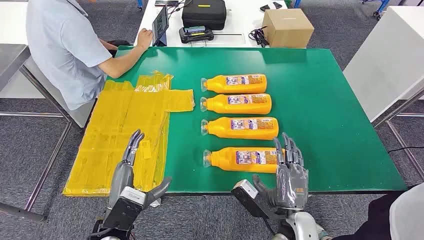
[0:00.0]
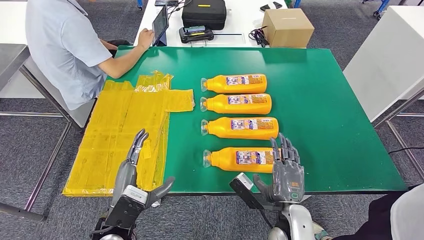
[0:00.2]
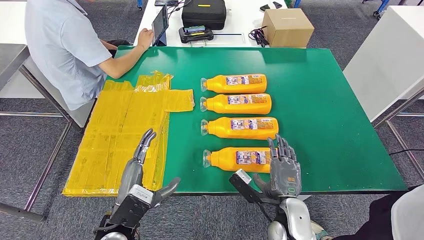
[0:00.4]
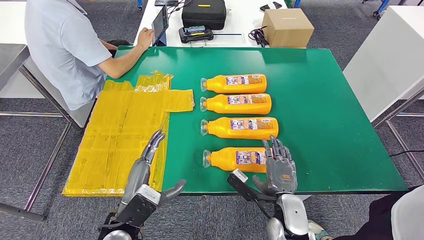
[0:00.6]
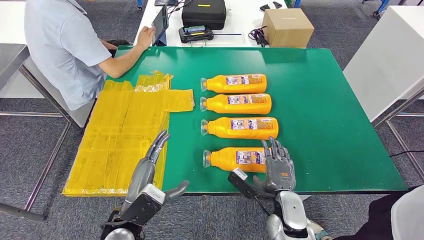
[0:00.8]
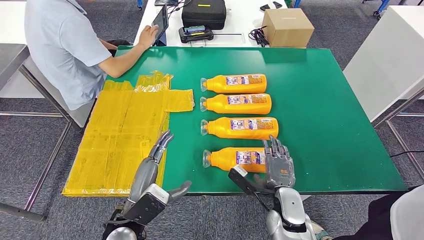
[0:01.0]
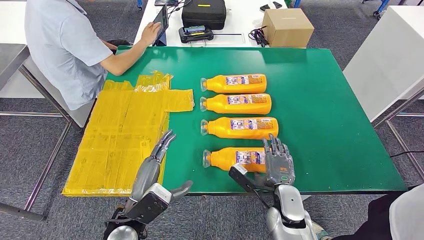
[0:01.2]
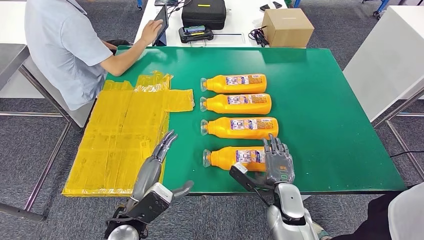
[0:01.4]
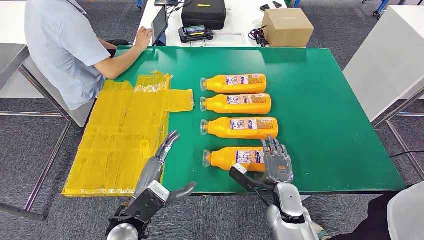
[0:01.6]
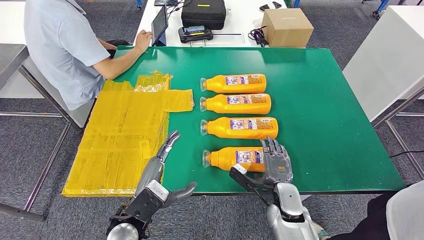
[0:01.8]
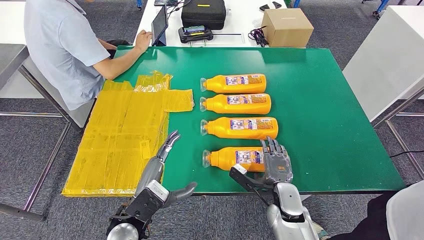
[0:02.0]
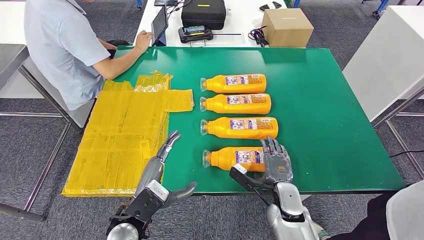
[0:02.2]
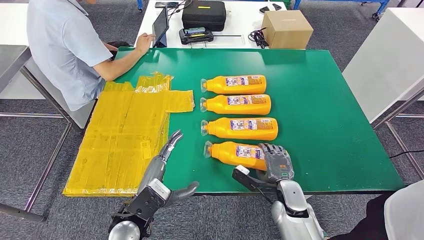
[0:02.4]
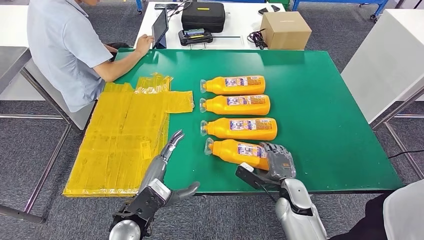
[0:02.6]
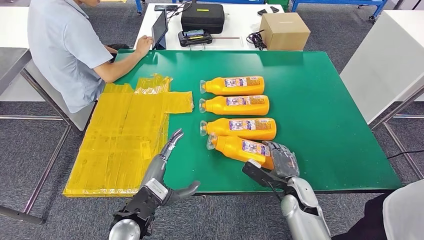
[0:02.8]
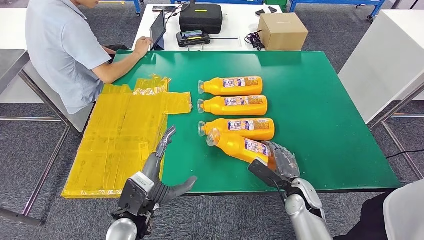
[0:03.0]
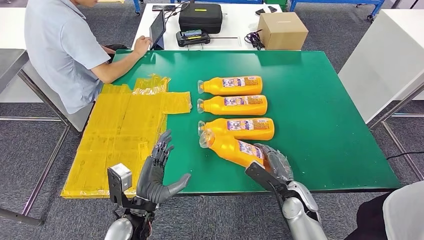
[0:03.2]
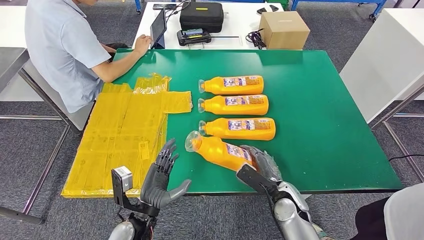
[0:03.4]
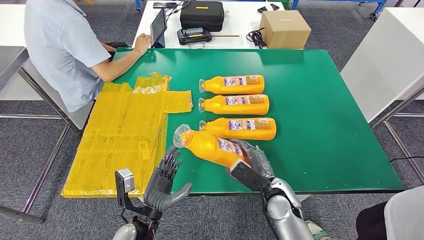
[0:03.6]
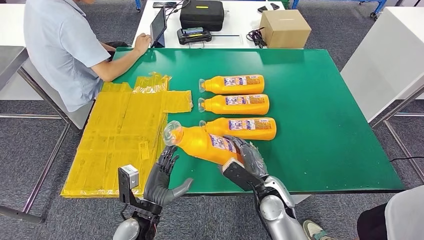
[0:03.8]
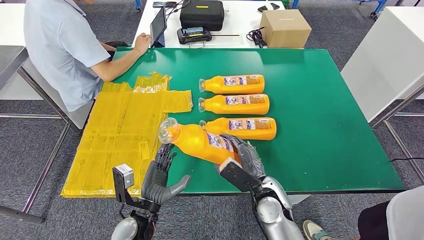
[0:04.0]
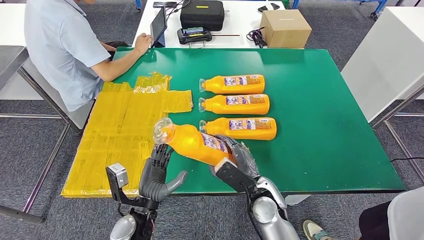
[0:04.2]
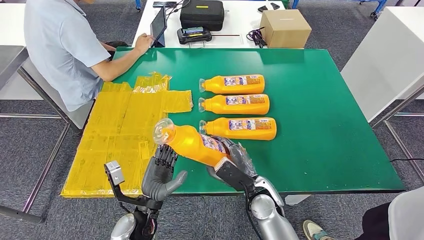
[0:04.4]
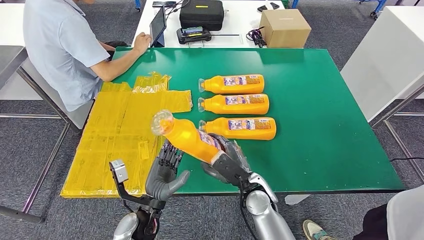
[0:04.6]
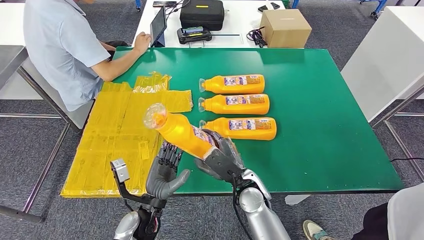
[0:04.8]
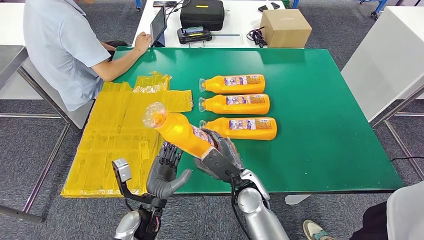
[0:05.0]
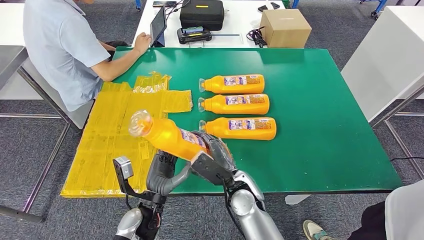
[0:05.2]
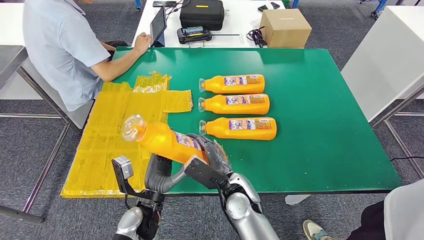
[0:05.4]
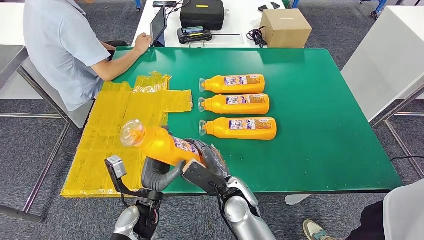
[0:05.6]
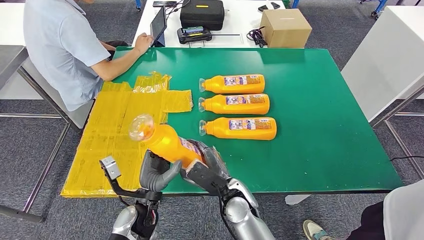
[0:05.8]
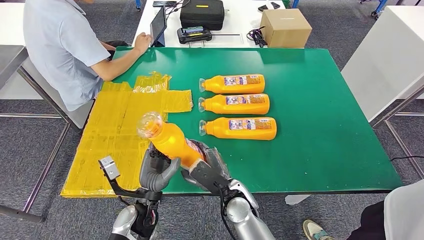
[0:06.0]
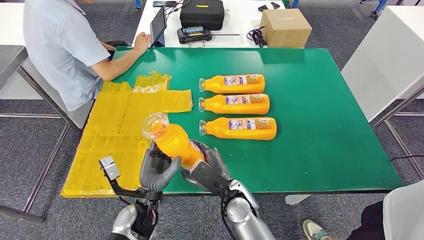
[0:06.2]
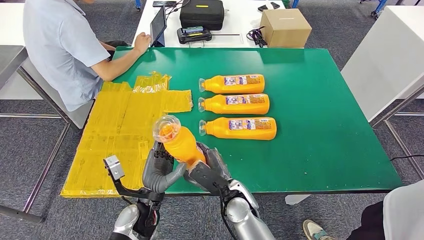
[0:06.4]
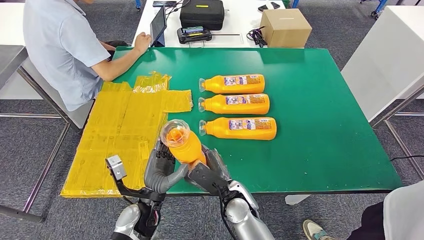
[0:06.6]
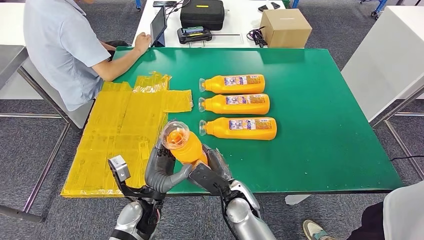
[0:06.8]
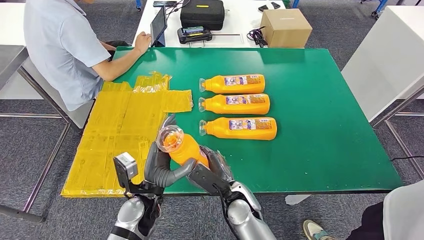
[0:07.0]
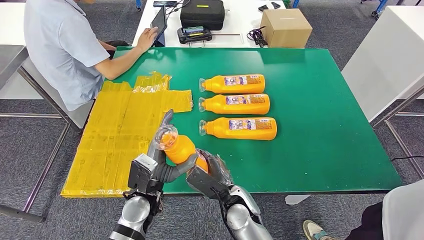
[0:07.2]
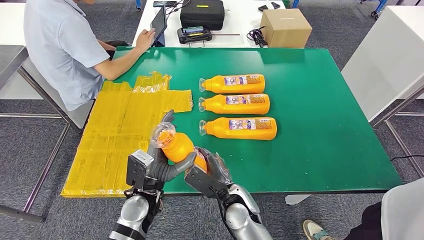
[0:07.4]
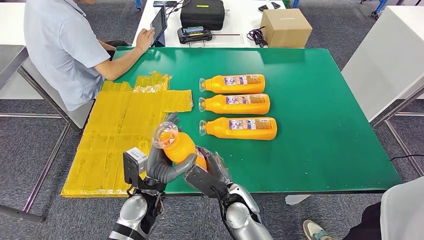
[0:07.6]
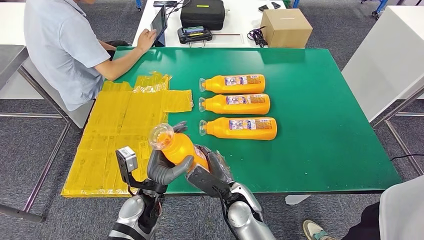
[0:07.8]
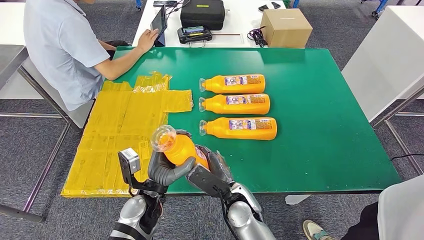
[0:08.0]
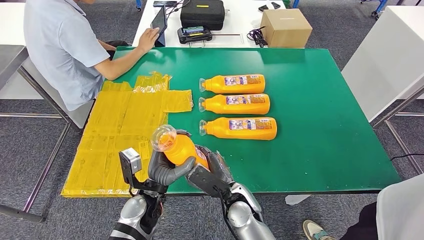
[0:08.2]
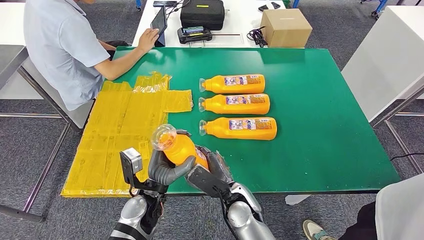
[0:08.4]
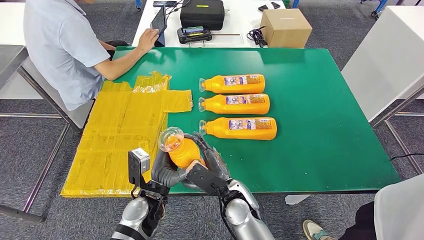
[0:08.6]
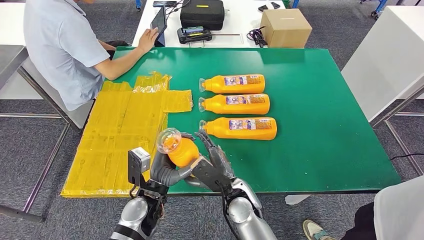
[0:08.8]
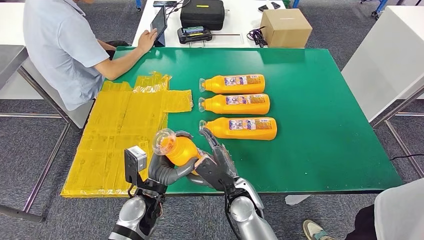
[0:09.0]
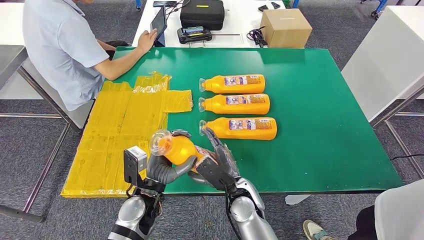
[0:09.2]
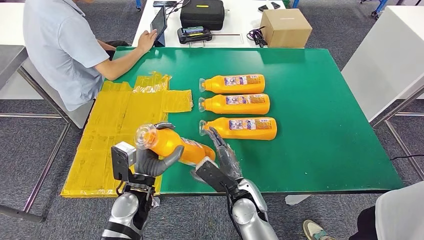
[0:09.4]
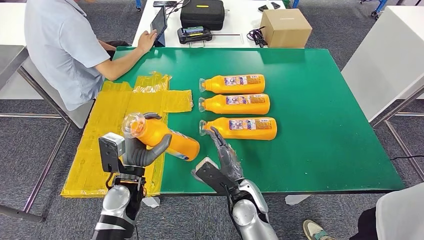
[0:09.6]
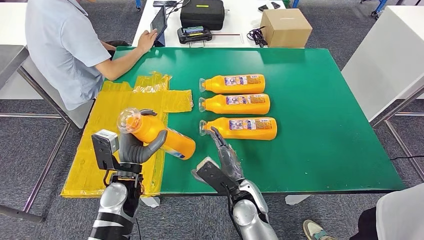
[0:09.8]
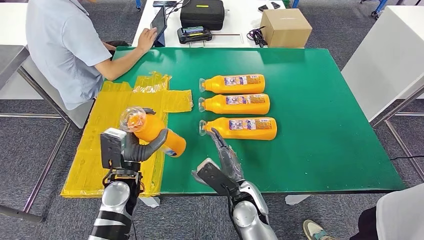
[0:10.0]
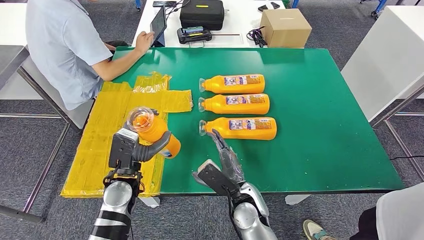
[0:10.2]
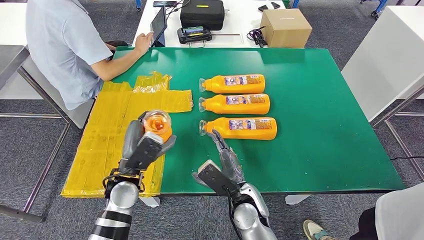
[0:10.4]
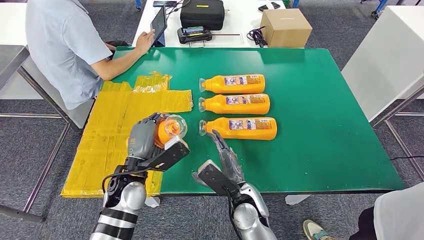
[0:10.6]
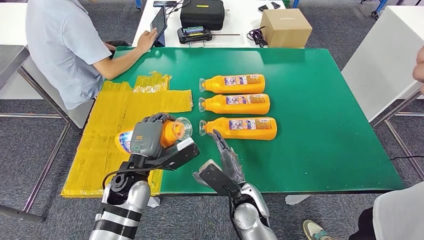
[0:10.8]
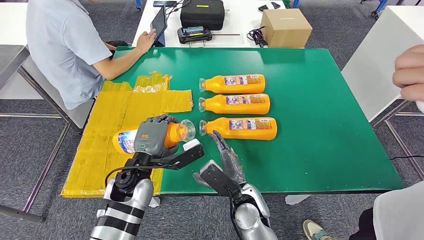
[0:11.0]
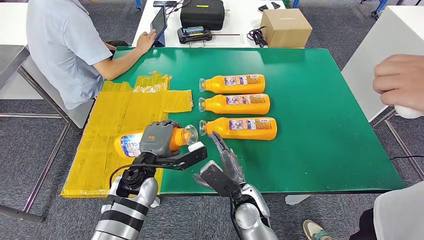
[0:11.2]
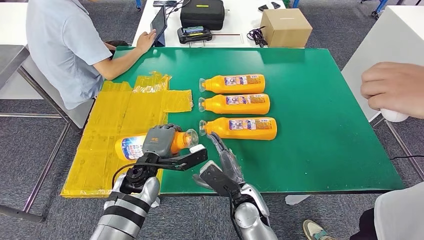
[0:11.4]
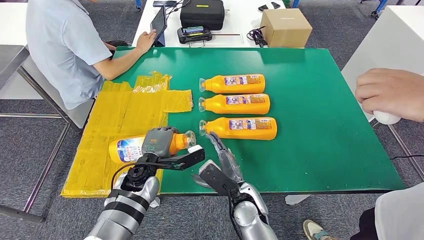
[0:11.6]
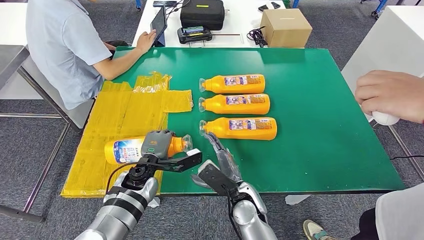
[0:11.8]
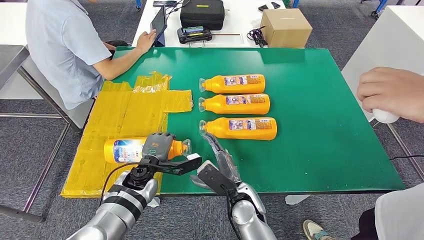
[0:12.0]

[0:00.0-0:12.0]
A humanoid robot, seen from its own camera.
Step, 0:00.0 to 0:03.8: Take the fast-moving consumer goods bottle from the table.
Step, 0:04.2 to 0:11.2: Flip the fast-moving consumer goods bottle to the front side.
0:04.4 to 0:06.0: The right hand goes about 5 cm to the left.
0:07.6 to 0:09.0: There are only small adjustments of the hands.
0:09.0 to 0:10.4: The left hand shifts some 5 cm to the left.
0:10.4 to 0:12.0: The left hand heads downward, covering about 5 cm.

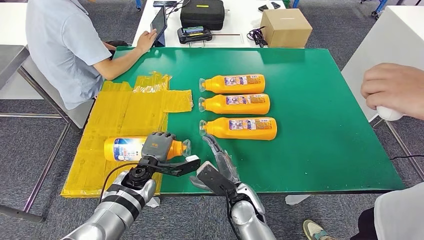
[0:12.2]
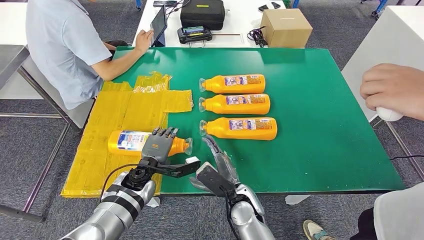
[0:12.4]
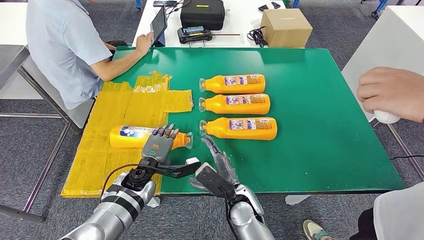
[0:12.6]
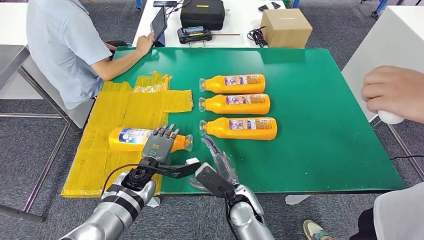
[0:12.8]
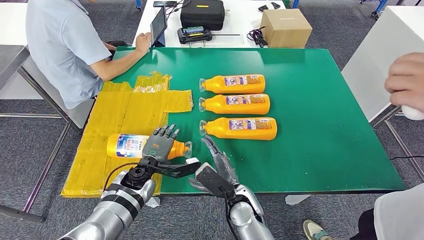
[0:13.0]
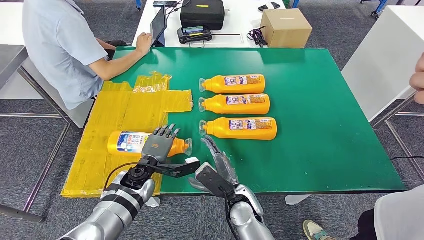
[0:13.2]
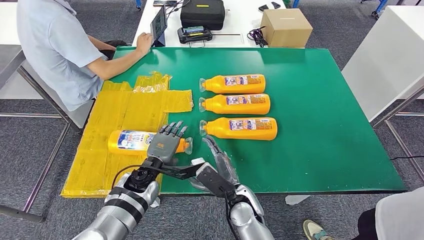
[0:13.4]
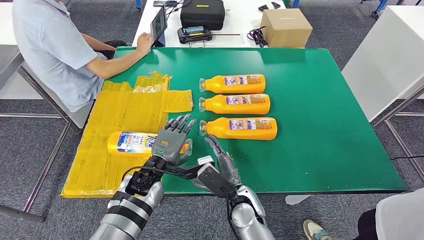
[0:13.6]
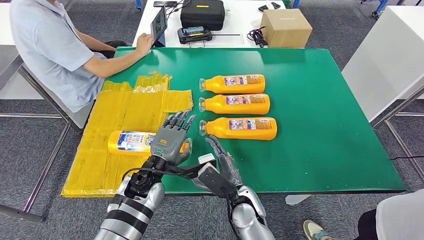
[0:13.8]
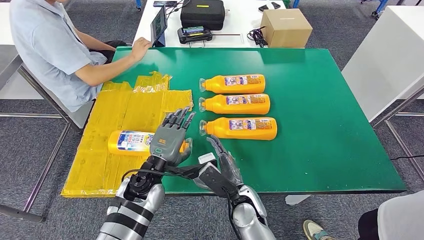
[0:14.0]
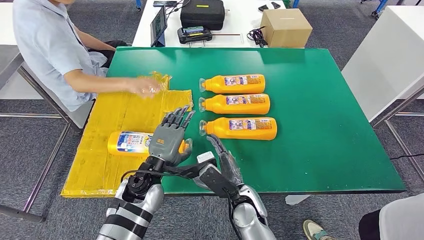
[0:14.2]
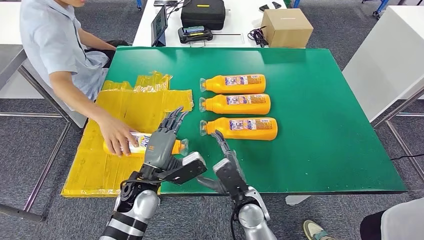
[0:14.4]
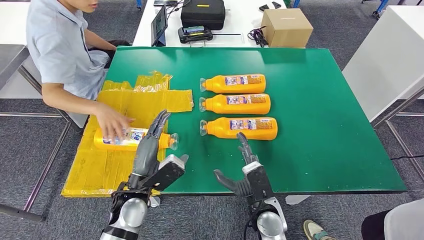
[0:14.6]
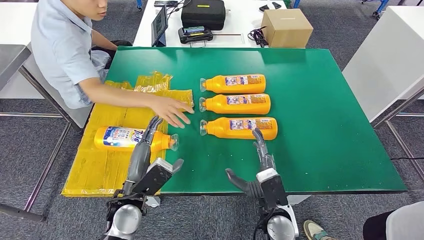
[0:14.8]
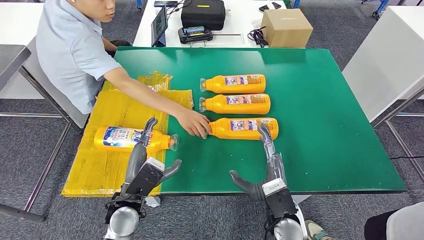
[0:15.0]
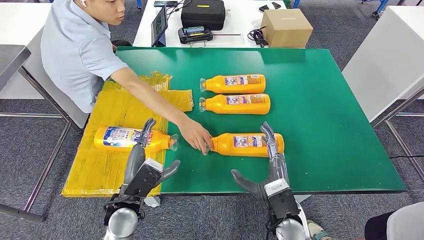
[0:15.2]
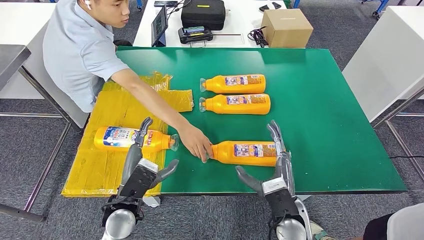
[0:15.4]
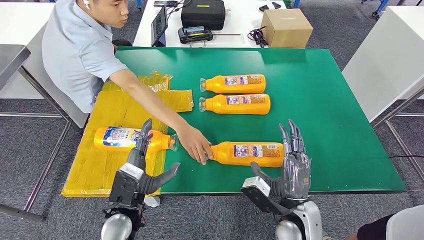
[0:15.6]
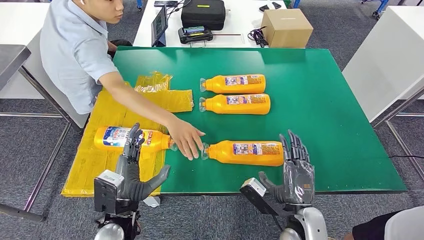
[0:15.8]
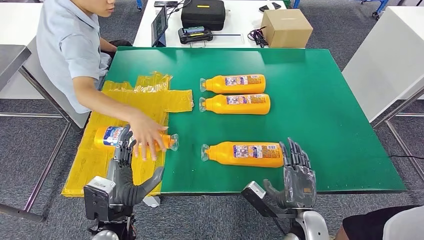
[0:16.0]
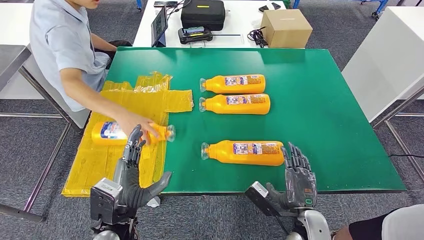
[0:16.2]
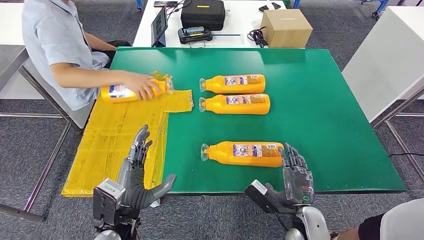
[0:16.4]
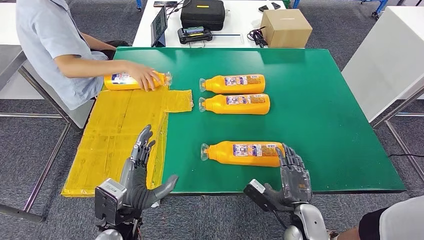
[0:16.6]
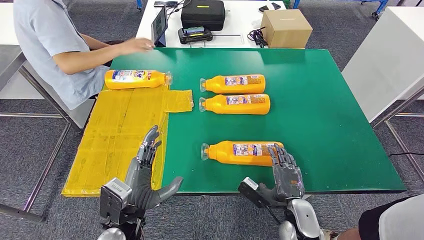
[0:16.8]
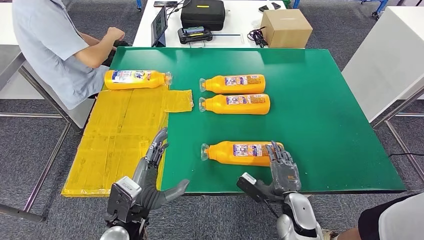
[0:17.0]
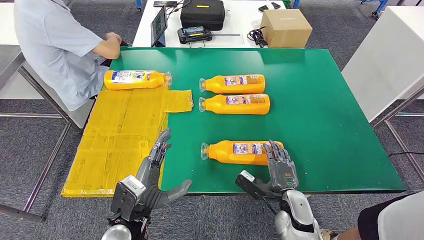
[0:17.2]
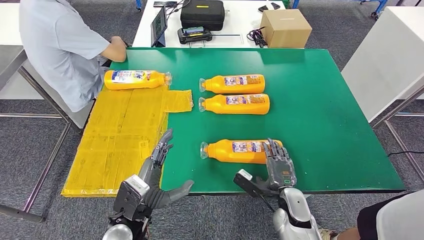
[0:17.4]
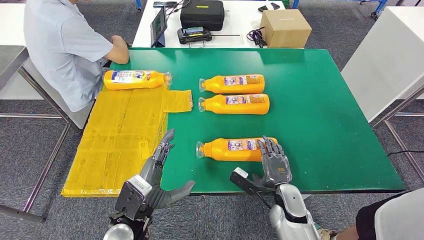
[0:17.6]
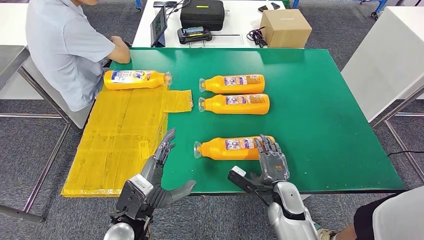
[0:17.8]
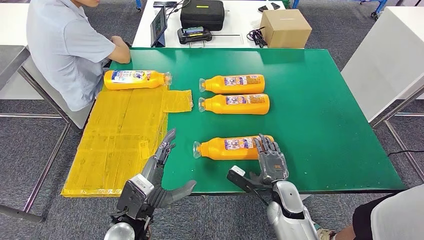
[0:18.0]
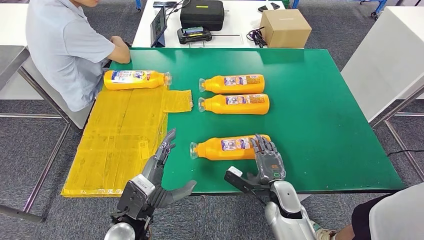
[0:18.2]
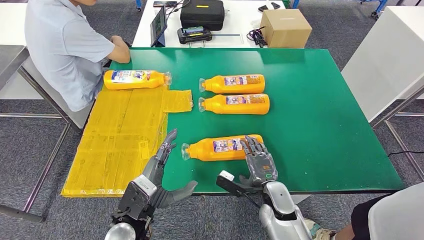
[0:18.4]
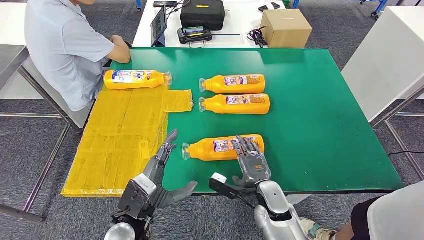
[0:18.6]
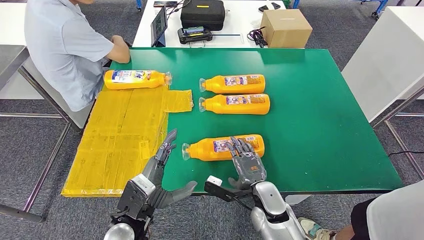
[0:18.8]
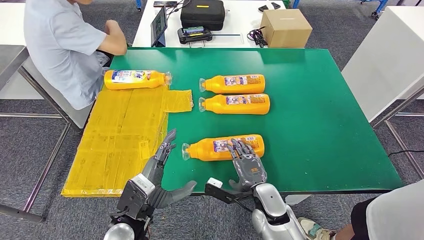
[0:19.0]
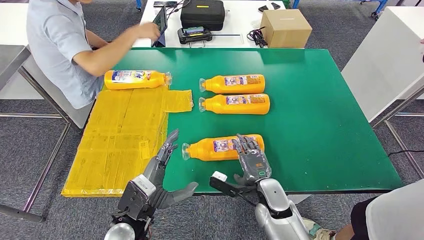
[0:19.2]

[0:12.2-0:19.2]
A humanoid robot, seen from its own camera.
0:12.2 to 0:13.6: There are only small adjustments of the hands.
0:16.4 to 0:17.8: The right hand goes some 5 cm forward.